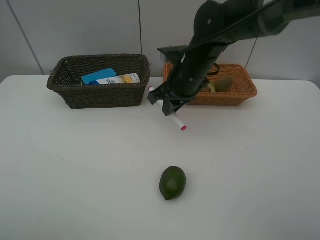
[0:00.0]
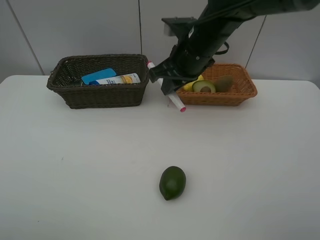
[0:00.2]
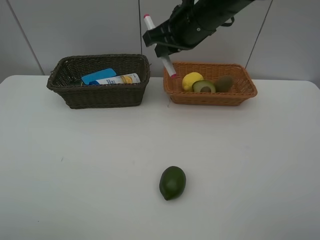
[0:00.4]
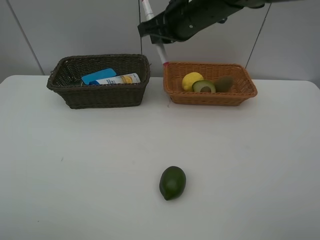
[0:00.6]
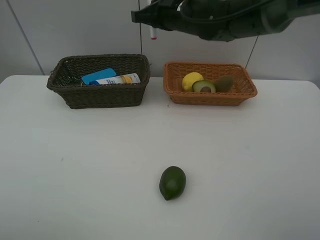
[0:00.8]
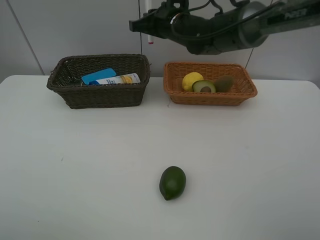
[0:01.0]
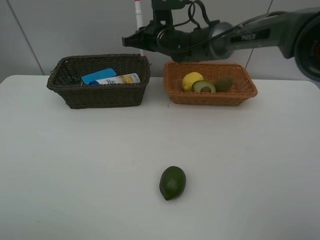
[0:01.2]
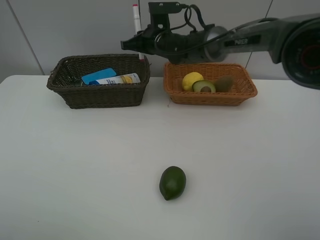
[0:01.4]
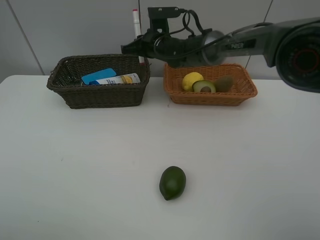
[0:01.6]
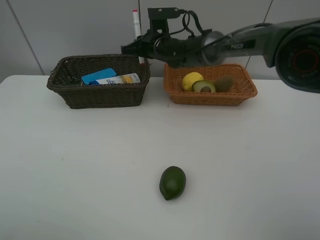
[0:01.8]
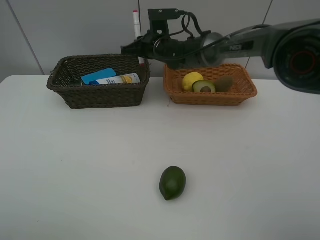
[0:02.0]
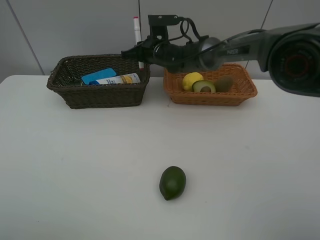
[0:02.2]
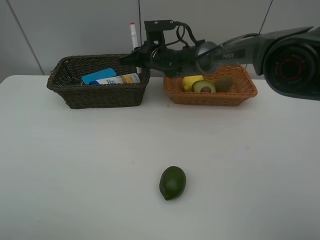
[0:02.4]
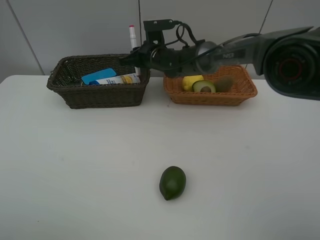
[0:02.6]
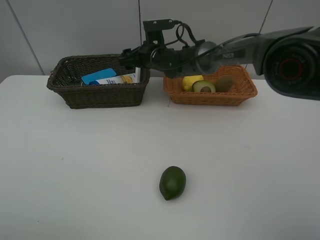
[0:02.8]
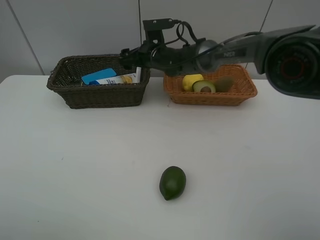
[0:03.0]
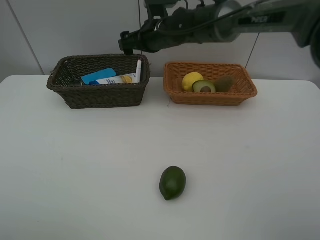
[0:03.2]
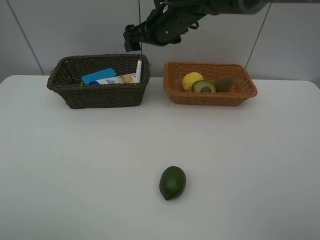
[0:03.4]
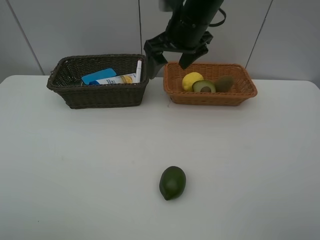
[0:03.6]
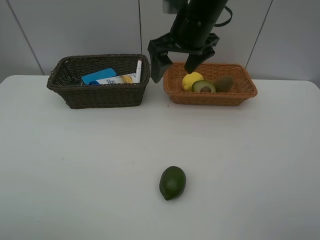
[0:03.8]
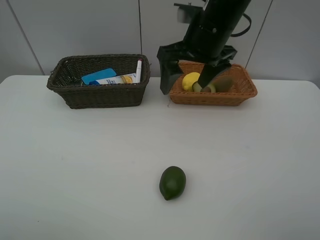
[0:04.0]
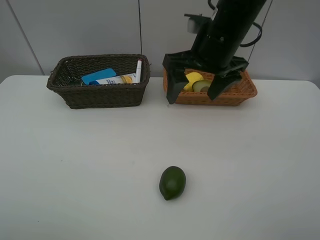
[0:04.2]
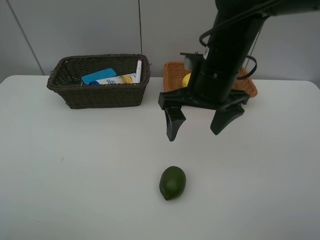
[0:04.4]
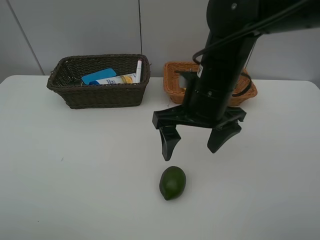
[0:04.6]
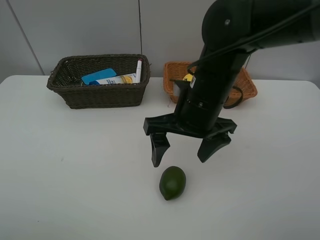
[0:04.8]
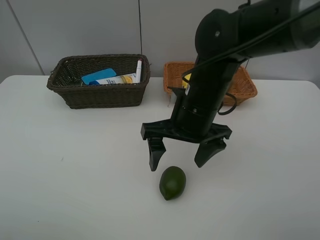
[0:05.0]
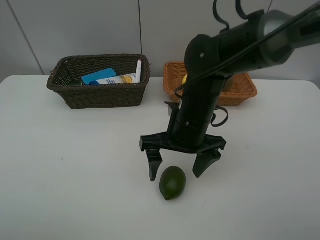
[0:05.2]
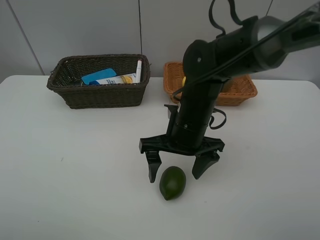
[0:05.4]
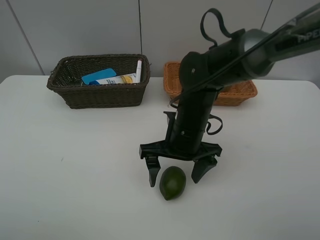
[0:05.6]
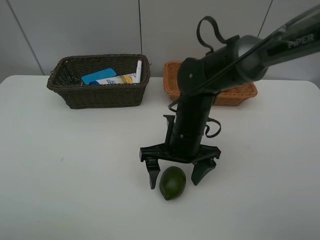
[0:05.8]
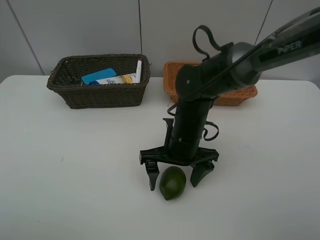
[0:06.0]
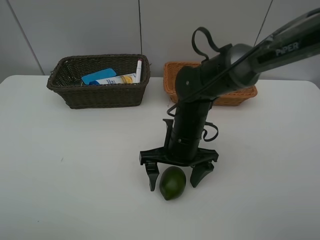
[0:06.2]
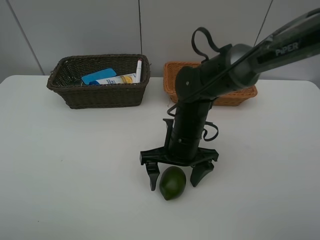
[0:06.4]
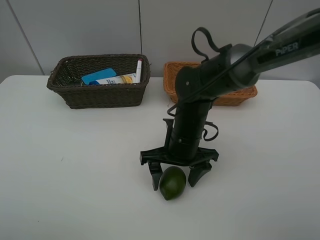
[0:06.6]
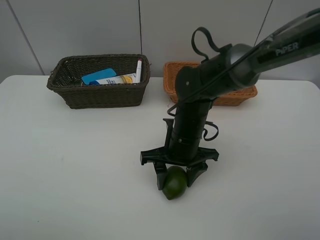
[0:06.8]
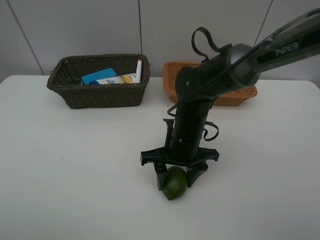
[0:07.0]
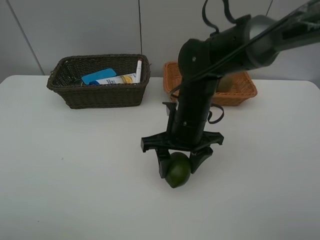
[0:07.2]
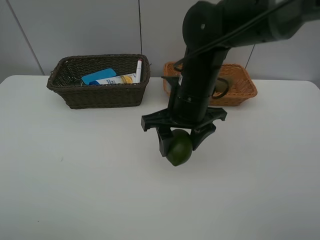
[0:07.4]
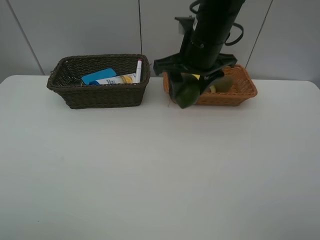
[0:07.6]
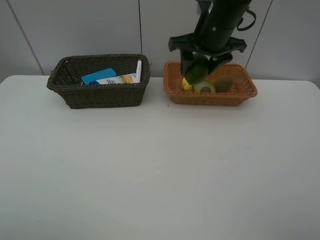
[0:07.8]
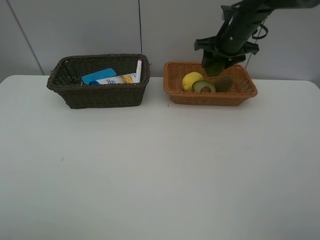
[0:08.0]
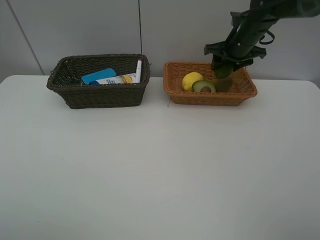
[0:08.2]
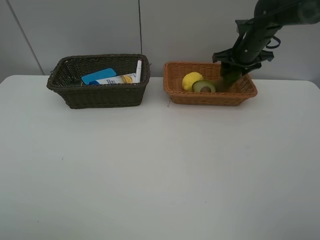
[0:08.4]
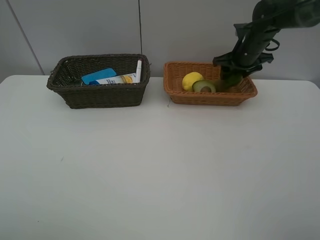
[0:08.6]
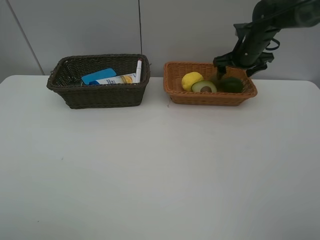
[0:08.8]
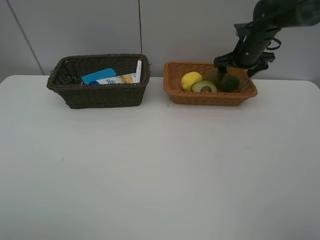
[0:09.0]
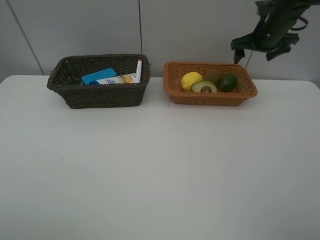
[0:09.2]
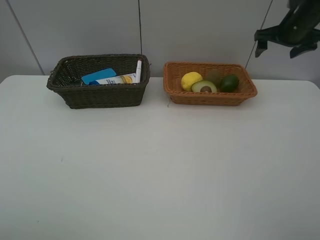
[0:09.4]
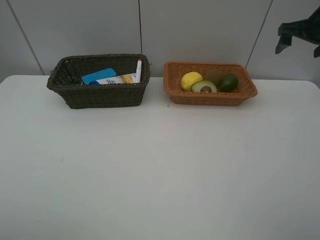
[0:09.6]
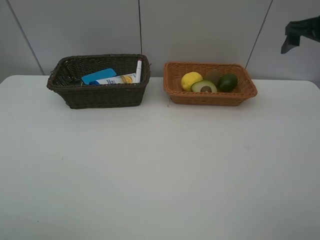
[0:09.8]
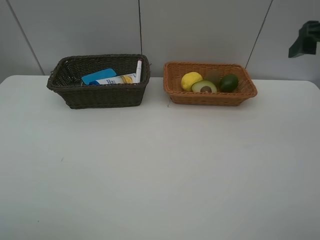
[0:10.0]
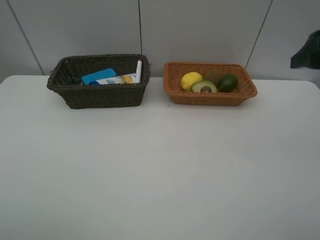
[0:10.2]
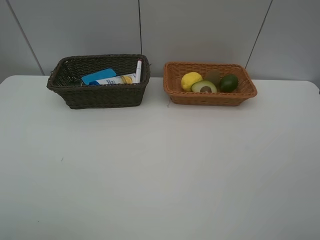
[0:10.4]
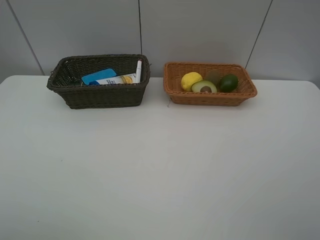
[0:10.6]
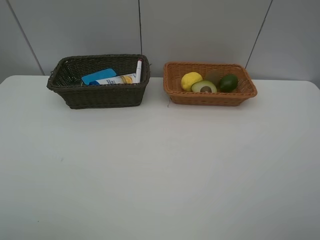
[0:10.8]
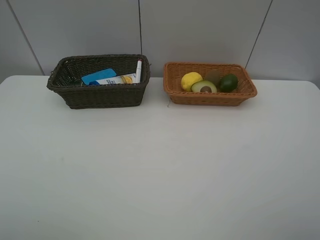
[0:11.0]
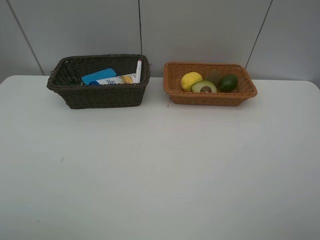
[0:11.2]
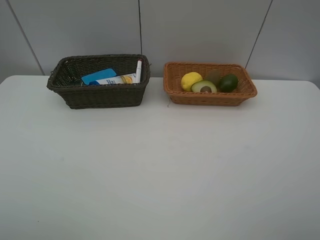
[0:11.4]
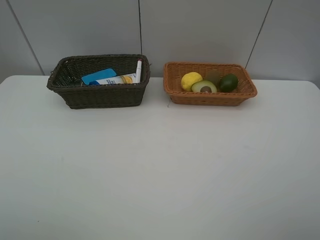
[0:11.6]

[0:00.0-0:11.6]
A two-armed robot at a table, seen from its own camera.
Task of the whole recording: Place multiple objects separately in different baskets.
Step, 0:00.0 to 0:03.2: Place the red marker in the dark basket with right gripper.
Step, 0:03.4 to 0:07.2: Pick up the lime with right gripper.
Step, 0:07.4 to 0:09.0: Place the lime in the light basket with right gripper.
0:00.0 to 0:01.4: The right gripper travels forward and to the left by some 15 cm.
0:01.4 to 0:02.8: The right gripper opens.
0:02.8 to 0:04.4: The right gripper heads backward, upward and to the right, covering about 25 cm.
0:04.4 to 0:05.8: The right gripper heads downward, covering about 10 cm.
0:05.8 to 0:07.2: The right gripper closes.
0:07.2 to 0:08.8: The right gripper goes approximately 30 cm forward and to the right, and opens up.
0:08.8 to 0:10.2: The right gripper goes about 30 cm backward and upward.
0:10.2 to 0:11.6: The right gripper shifts approximately 20 cm backward.

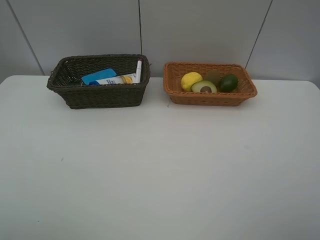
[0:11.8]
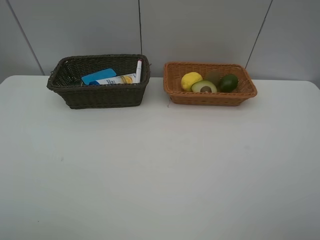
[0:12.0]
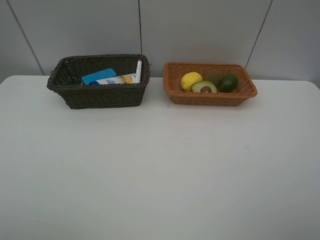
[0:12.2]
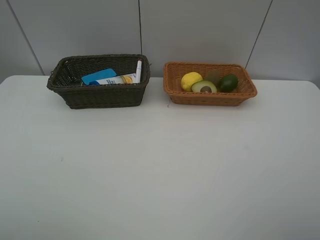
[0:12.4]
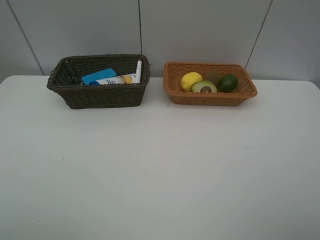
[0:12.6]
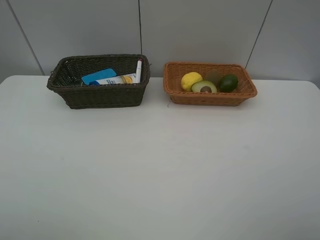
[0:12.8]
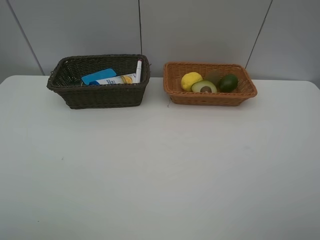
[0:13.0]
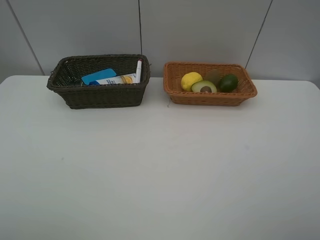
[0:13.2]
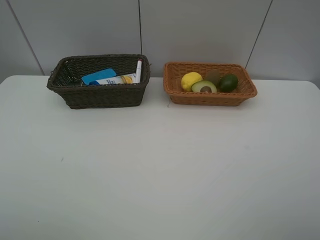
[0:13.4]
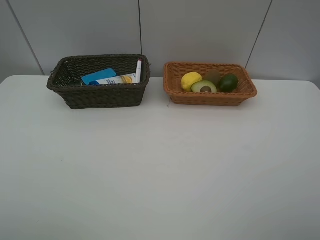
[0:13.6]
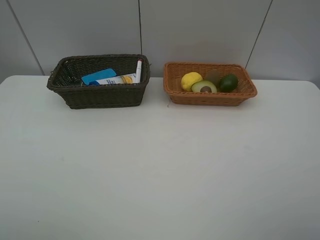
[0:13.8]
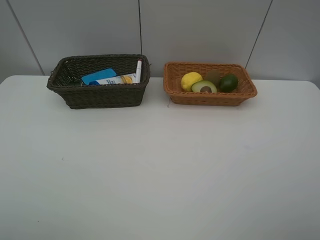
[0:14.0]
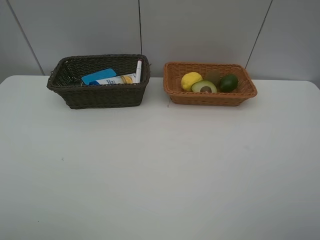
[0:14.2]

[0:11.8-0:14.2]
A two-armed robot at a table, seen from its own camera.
Task of the whole recording: Place multiple objects separately in different baskets.
0:13.0 to 0:14.2: The two grippers keep their place.
